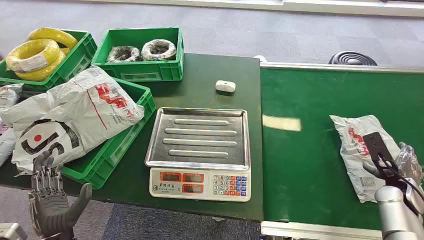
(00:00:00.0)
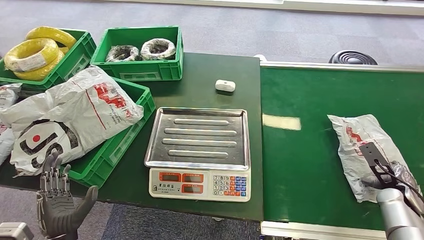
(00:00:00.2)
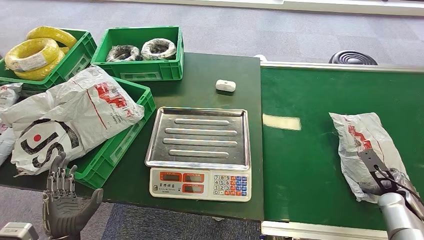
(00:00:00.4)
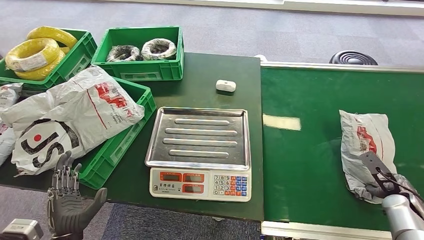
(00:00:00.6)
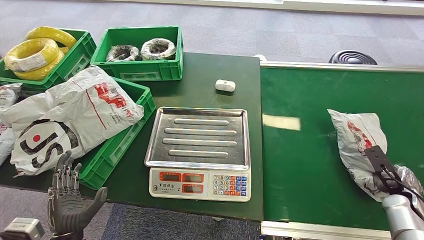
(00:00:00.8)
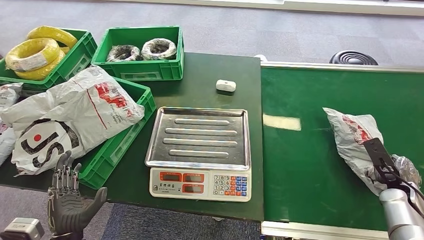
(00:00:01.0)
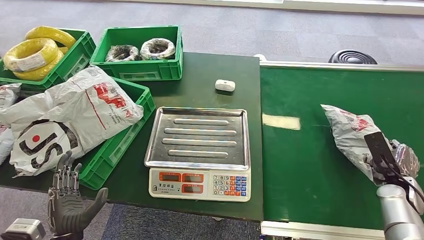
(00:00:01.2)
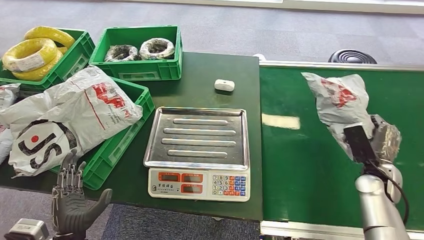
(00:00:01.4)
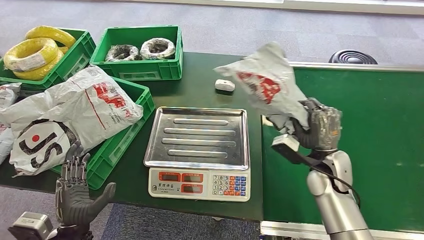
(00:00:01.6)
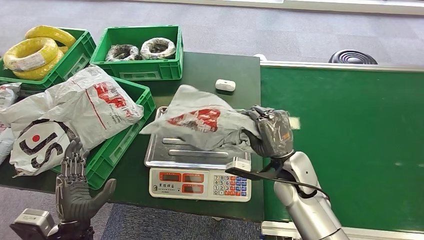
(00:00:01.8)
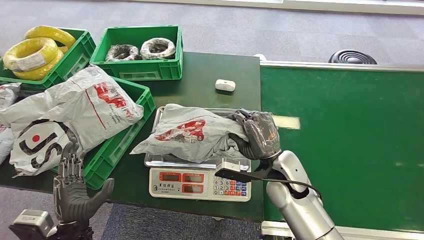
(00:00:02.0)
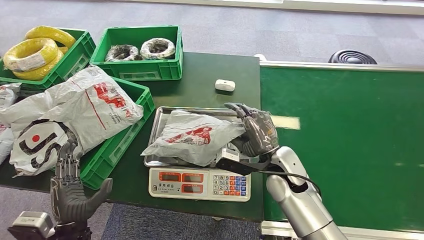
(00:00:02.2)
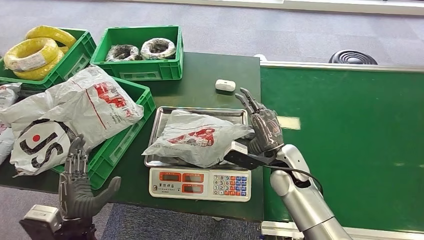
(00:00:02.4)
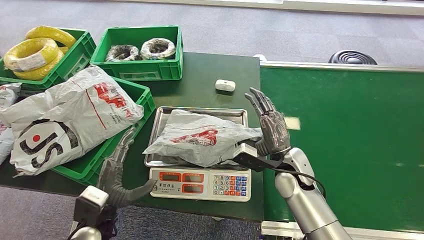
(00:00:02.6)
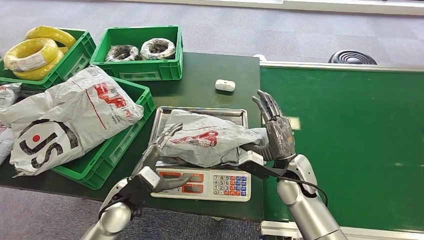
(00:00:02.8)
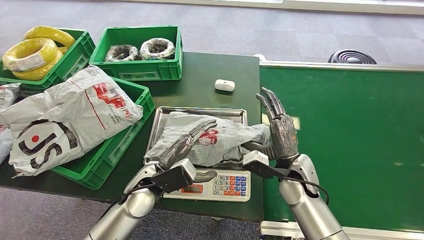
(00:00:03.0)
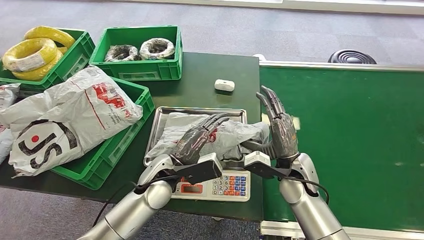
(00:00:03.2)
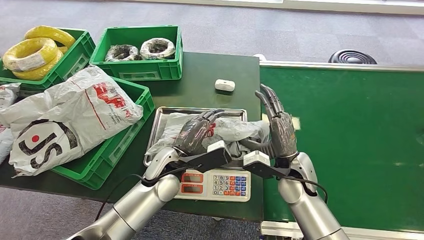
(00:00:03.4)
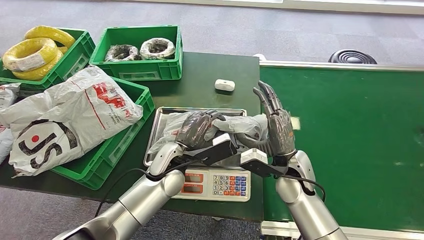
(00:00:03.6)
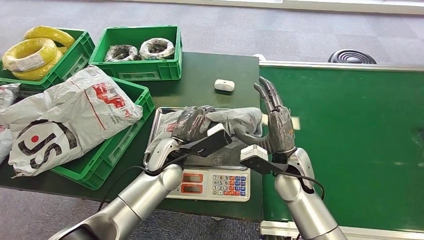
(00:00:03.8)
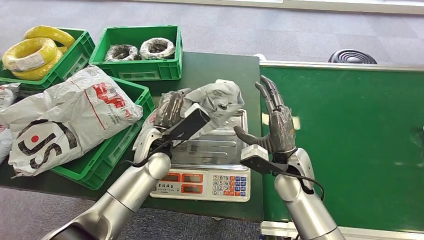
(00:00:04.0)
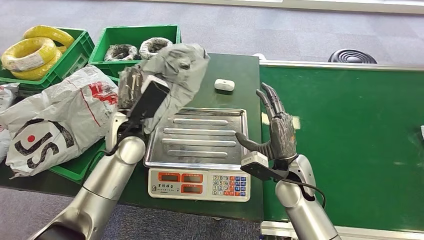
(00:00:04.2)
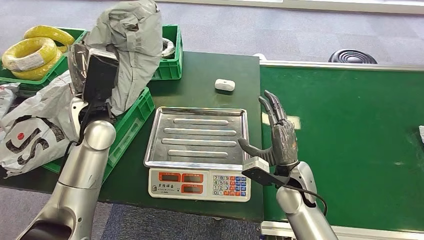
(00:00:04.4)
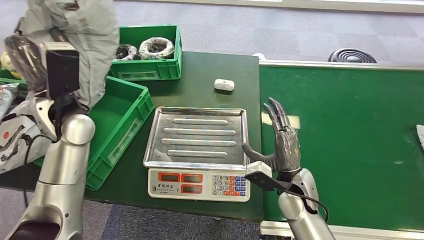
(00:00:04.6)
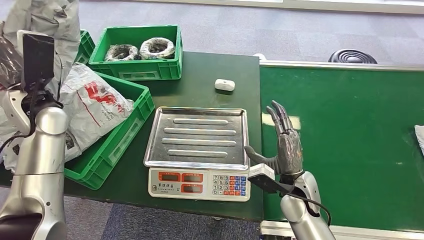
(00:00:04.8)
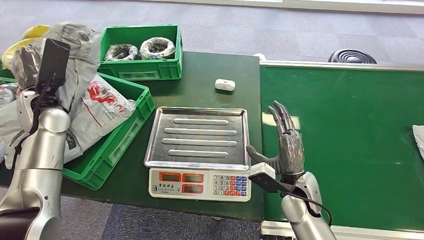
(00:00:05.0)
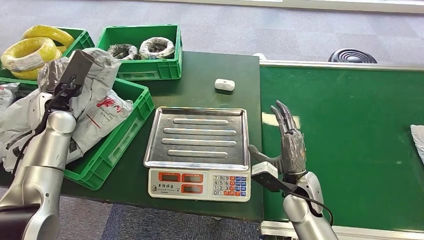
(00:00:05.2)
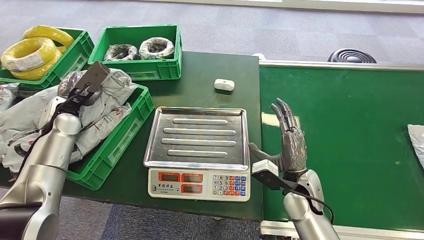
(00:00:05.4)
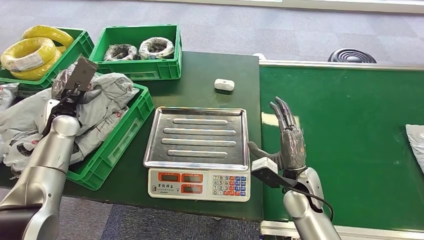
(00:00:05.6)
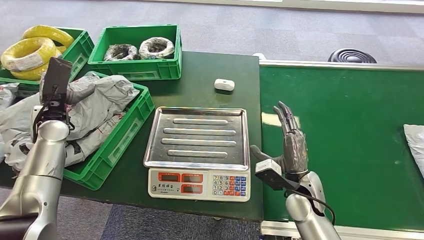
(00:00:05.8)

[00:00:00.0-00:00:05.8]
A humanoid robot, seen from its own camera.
Step, 00:00:00.0 to 00:00:01.2: Pick up the package from the conveyor belt.
Step, 00:00:01.4 to 00:00:02.2: Place the package onto the inbound machine.
Step, 00:00:02.6 to 00:00:04.4: Pick up the package from the inbound machine.
Step, 00:00:04.6 to 00:00:05.8: Place the package into the parcel locker.

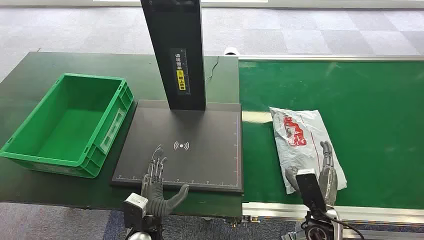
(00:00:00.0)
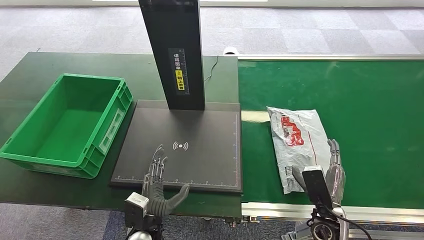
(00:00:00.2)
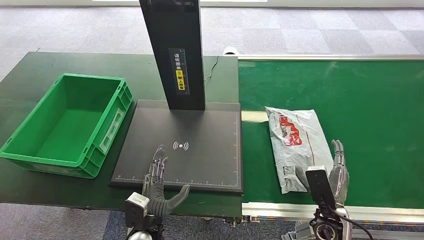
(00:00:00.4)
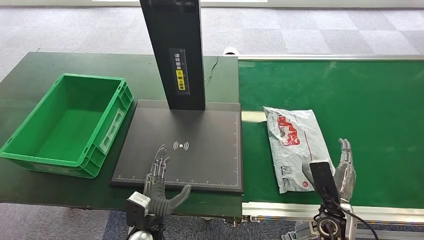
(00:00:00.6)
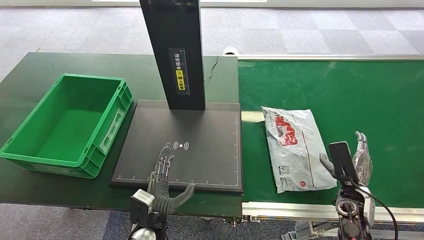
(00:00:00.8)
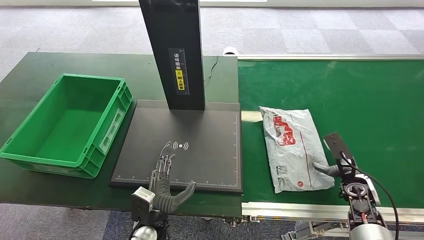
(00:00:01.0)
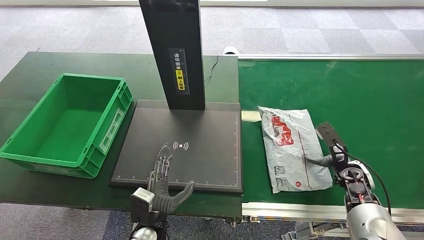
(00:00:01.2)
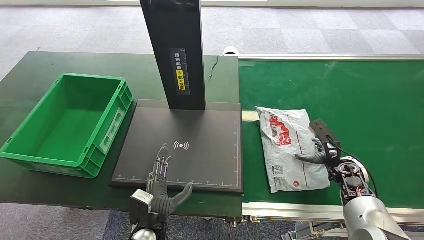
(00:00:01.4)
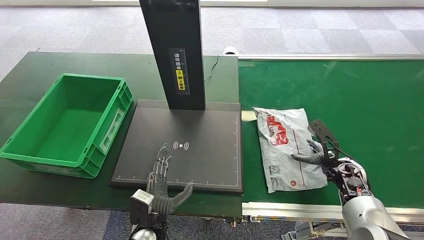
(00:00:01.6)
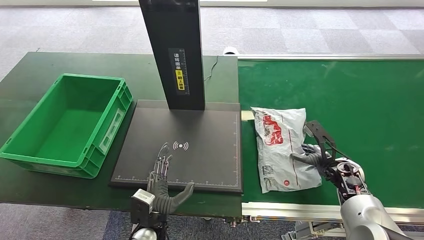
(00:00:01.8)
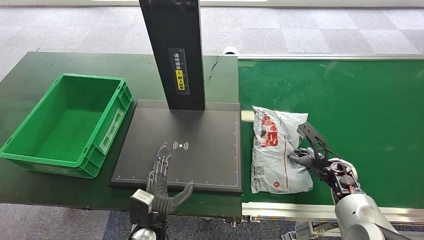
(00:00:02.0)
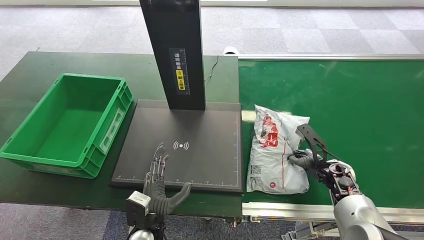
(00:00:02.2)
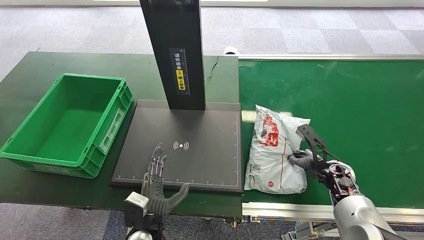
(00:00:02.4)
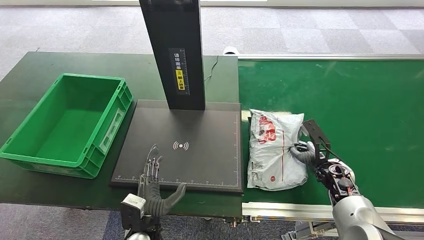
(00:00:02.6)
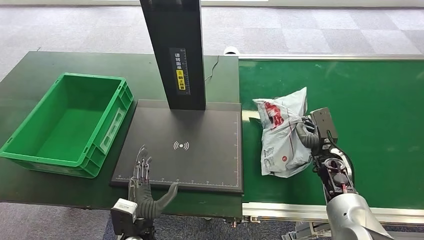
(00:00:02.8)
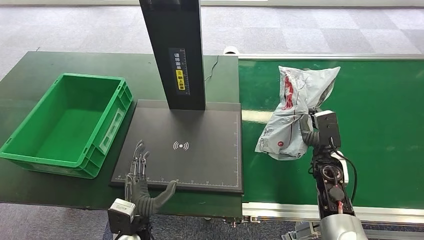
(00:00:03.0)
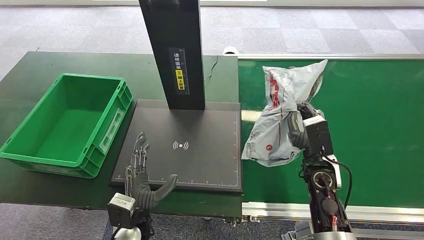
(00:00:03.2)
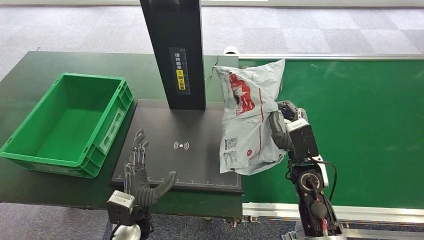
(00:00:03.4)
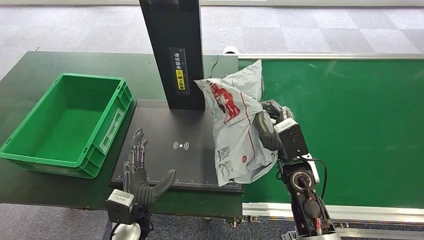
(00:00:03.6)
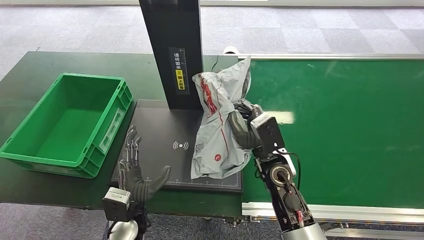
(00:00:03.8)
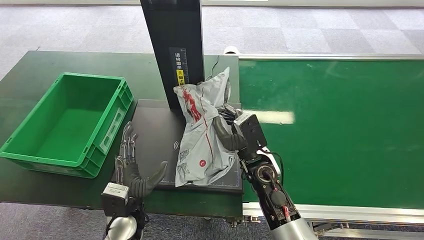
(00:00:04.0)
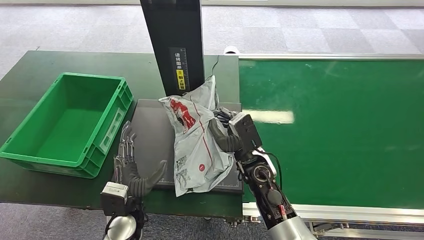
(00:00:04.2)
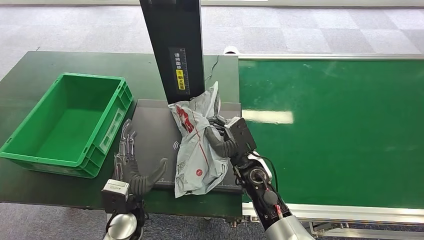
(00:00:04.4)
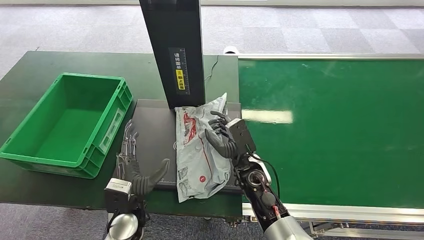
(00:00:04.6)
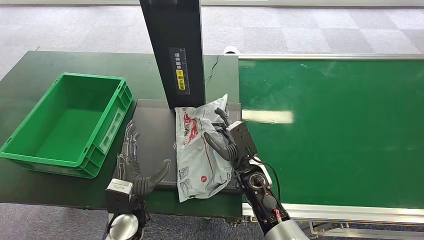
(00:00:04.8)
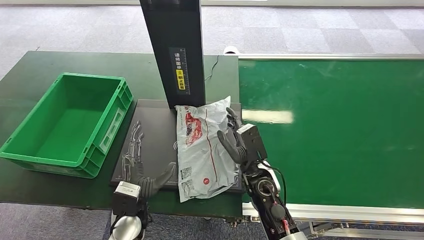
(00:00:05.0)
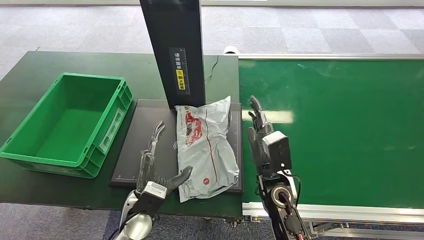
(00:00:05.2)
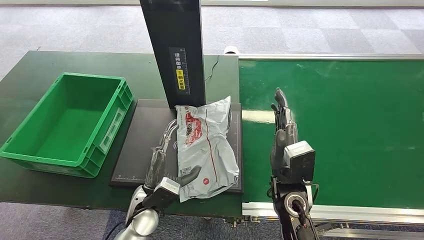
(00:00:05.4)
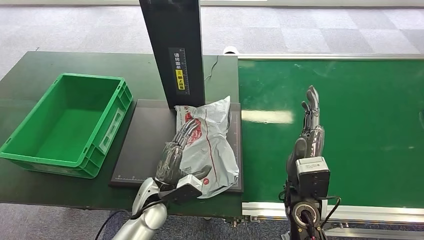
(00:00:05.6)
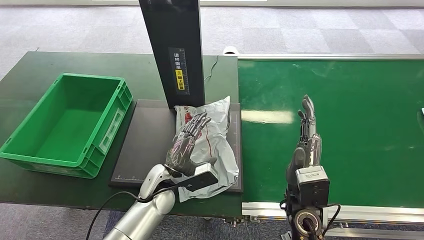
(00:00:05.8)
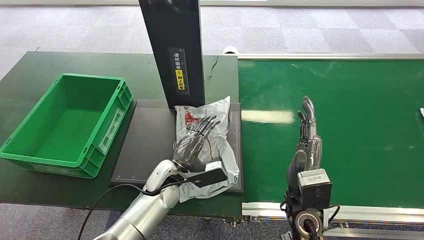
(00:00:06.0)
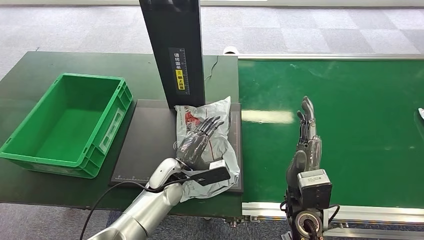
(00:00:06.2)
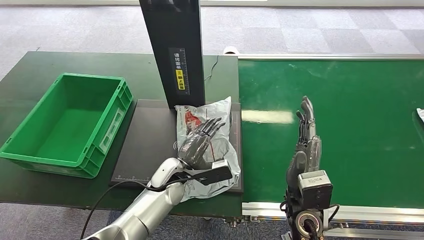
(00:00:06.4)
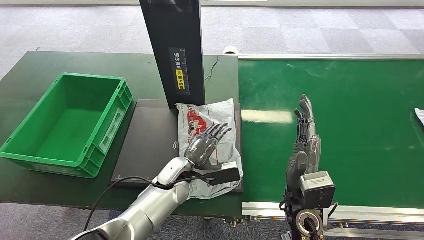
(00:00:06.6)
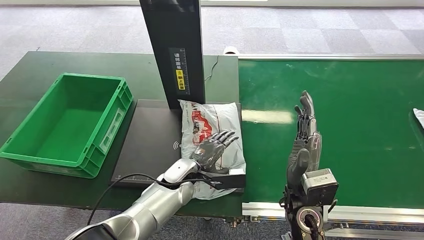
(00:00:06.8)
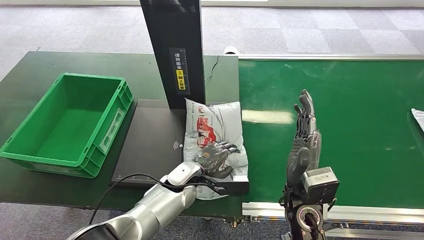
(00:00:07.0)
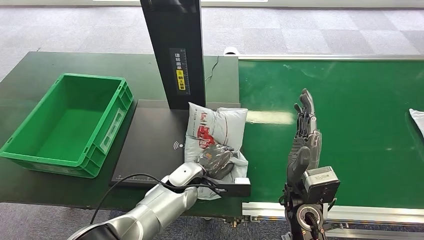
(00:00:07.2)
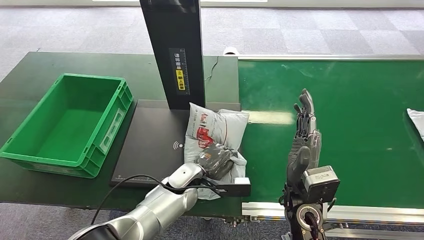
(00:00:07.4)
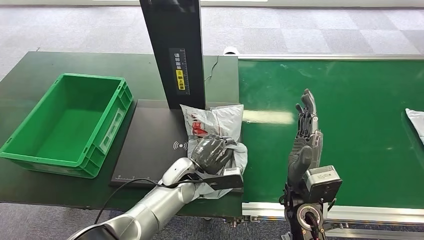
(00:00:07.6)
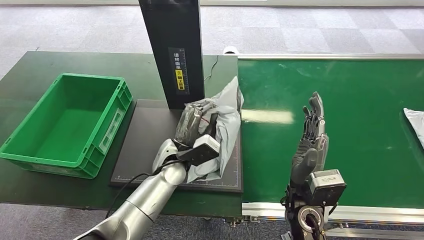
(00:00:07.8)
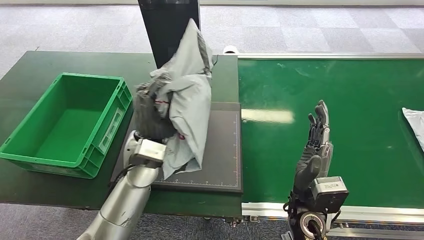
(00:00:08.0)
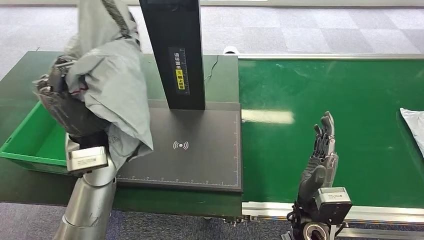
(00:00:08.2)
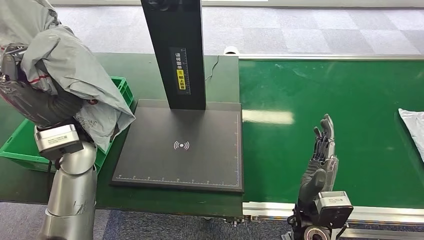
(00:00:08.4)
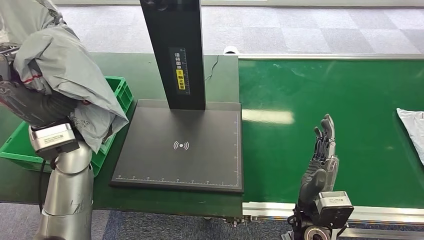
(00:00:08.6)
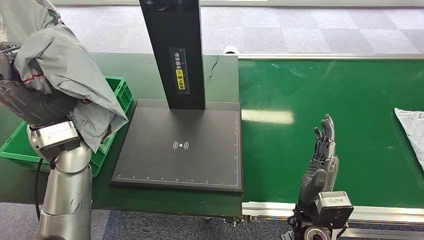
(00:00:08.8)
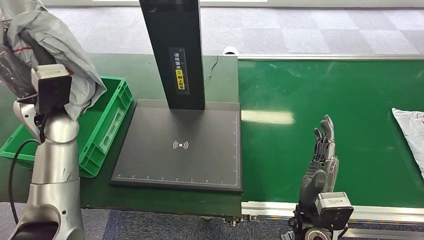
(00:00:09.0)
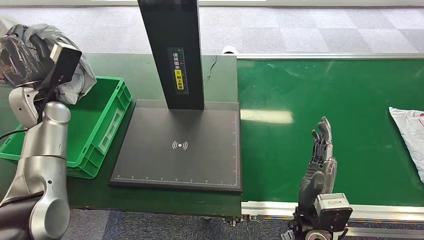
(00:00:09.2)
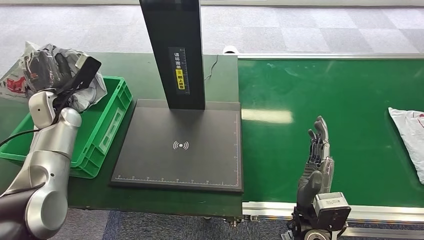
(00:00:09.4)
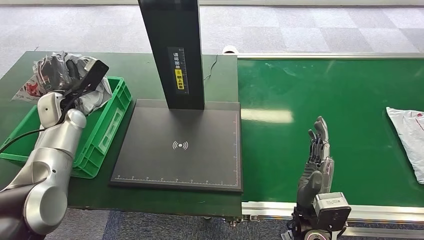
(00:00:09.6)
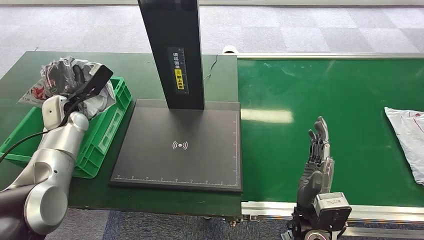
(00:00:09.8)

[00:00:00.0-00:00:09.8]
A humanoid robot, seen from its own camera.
Step, 00:00:00.0 to 00:00:03.2: Pick up the package from the conveyor belt.
Step, 00:00:03.4 to 00:00:05.4: Place the package onto the inbound machine.
Step, 00:00:05.6 to 00:00:08.2: Pick up the package from the inbound machine.
Step, 00:00:08.4 to 00:00:09.8: Place the package into the parcel locker.
00:00:04.2 to 00:00:05.6: The right hand shifts about 10 cm to the right and backward. Meanwhile the left hand changes place by about 5 cm.
00:00:05.6 to 00:00:07.0: The left hand heads forward and to the right, covering some 10 cm.
